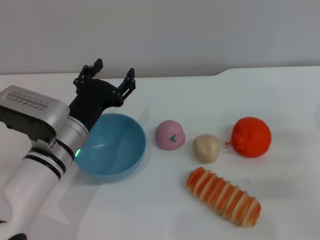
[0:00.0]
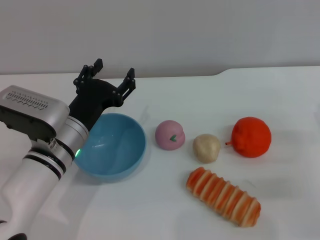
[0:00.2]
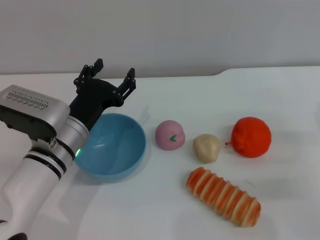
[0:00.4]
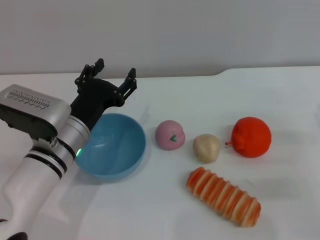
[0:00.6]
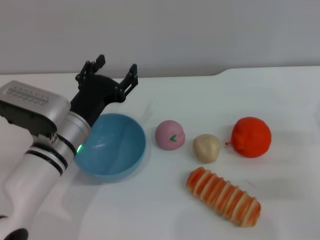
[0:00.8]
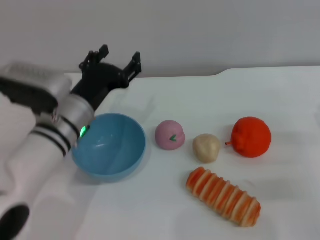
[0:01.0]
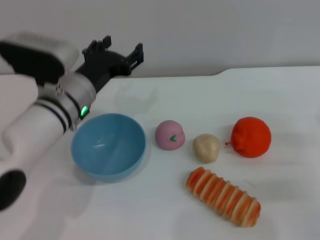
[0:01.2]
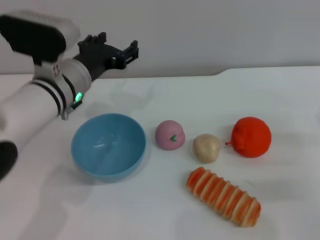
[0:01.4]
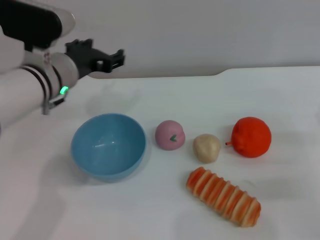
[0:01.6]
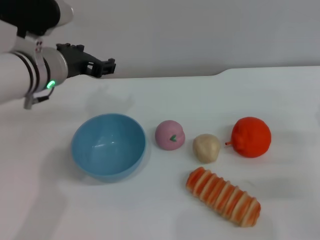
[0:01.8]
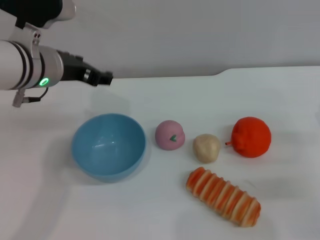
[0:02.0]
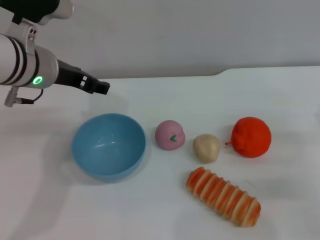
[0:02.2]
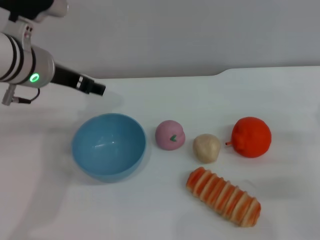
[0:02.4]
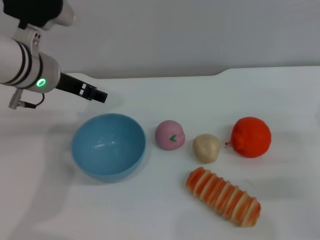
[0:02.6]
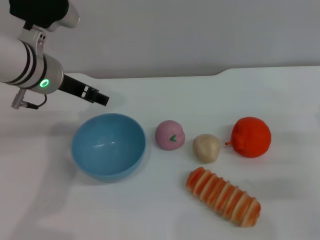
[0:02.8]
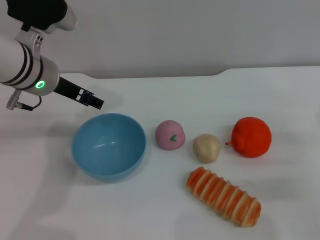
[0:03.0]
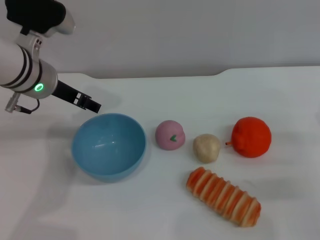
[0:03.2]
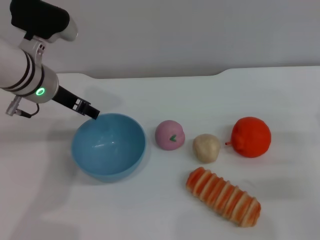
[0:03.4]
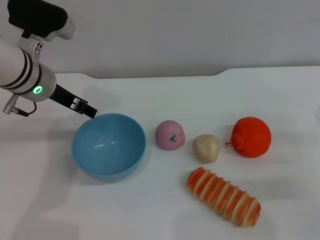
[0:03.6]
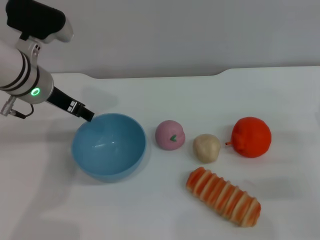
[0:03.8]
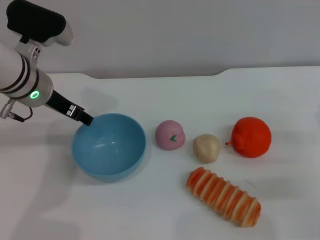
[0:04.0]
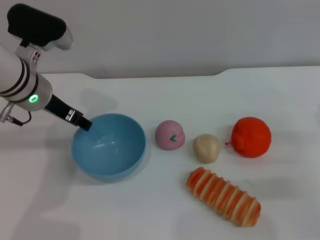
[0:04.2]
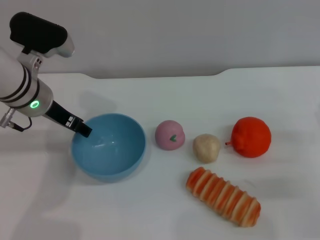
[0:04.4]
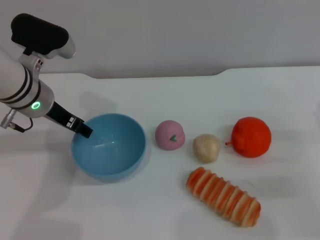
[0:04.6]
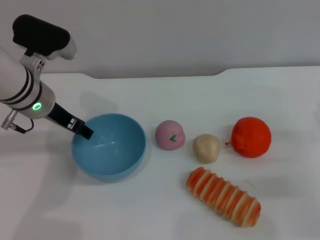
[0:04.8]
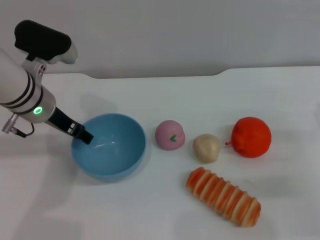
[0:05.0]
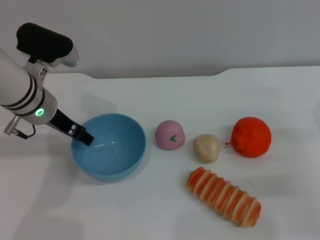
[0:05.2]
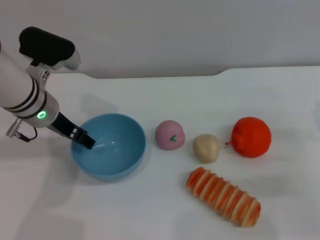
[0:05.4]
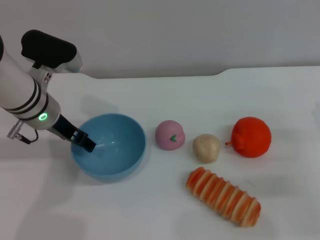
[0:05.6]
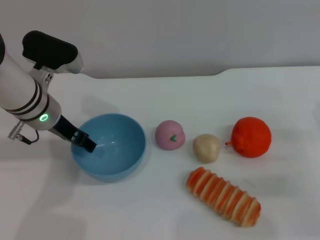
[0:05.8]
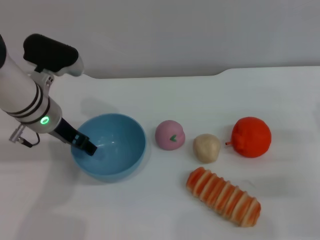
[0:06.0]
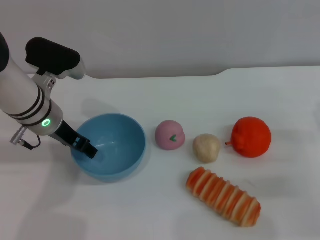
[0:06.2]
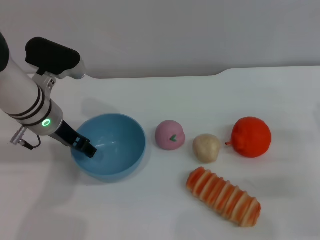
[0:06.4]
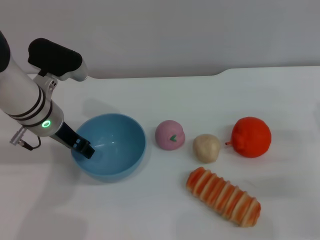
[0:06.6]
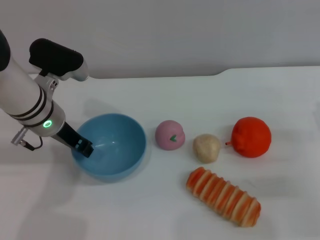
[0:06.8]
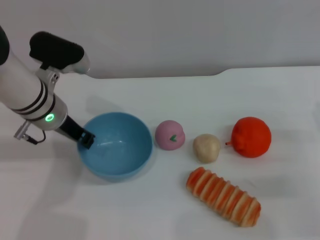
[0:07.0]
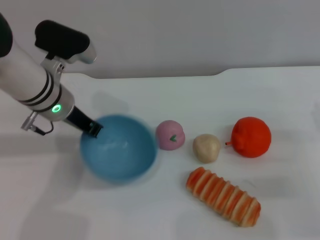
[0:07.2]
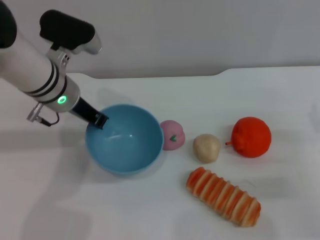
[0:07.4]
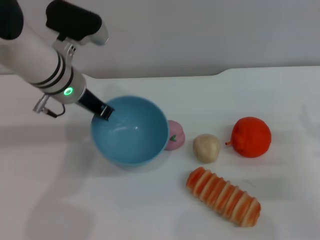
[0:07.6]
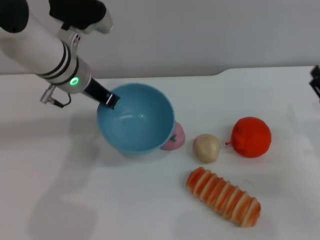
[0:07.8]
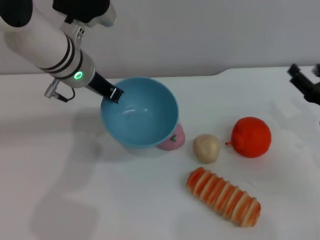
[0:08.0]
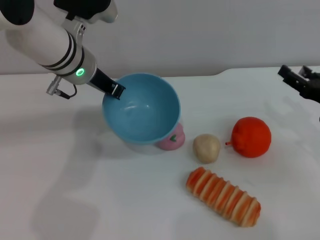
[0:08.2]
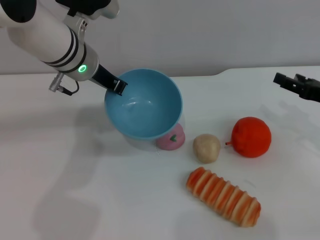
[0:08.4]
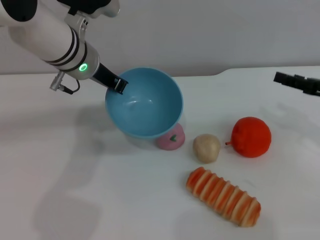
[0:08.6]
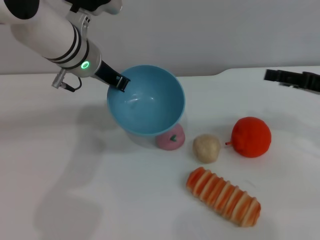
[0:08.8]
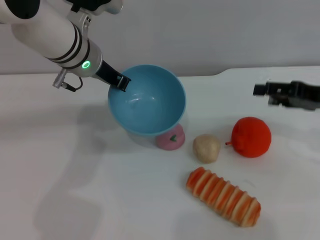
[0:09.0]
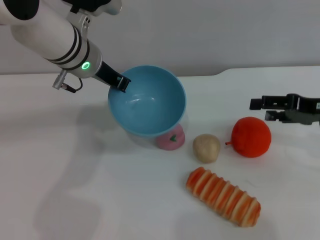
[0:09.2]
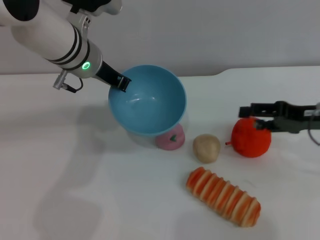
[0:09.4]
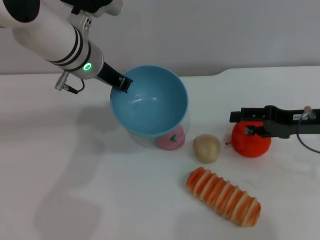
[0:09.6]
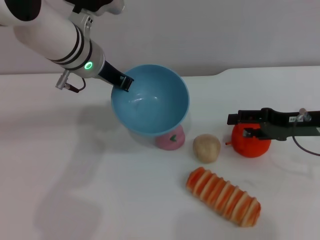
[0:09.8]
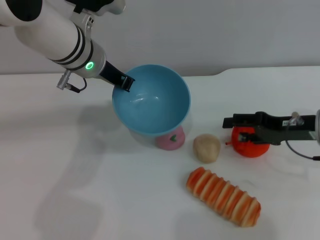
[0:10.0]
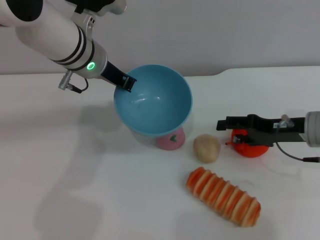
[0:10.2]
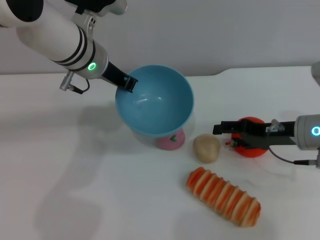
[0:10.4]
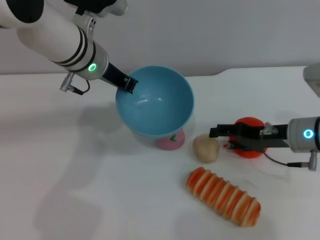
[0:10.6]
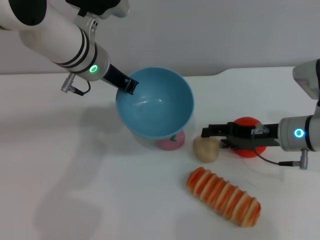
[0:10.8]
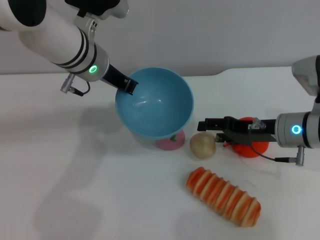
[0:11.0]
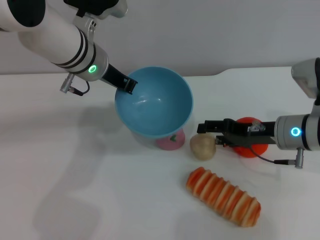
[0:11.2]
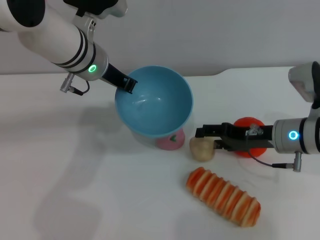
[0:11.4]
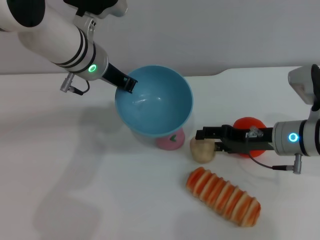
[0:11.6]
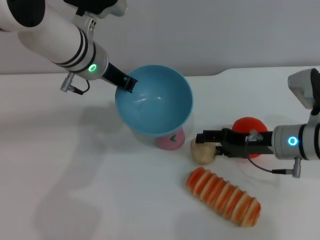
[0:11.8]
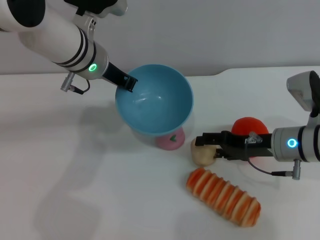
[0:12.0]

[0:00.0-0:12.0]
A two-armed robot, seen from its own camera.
Task of the whole recording: put the egg yolk pastry into the blue bowl and pour it out repeatedly.
Step, 0:00.0 to 0:08.0: Pick up the bowl with the left gripper.
0:00.0 to 0:01.6: The left gripper heads upward and forward, covering about 10 cm.
0:03.0 to 0:06.0: The grippers stay close to where they were, moving slightly.
0:06.0 to 0:07.6: The left gripper shifts by approximately 5 cm, and closes its fingers.
0:07.6 to 0:09.0: The right gripper travels upward and forward by some 15 cm.
0:09.0 to 0:10.4: The right gripper shifts roughly 10 cm downward and to the left.
0:10.4 to 0:12.0: The grippers move only a little.

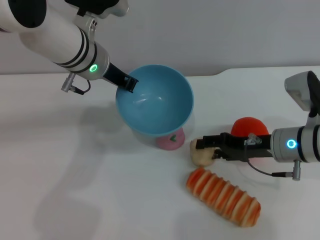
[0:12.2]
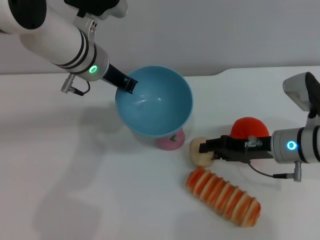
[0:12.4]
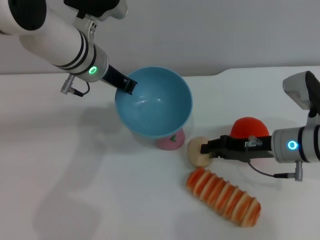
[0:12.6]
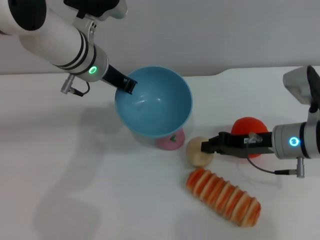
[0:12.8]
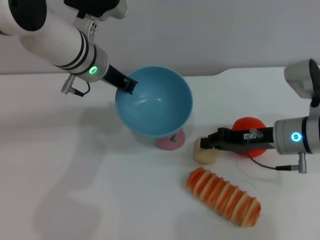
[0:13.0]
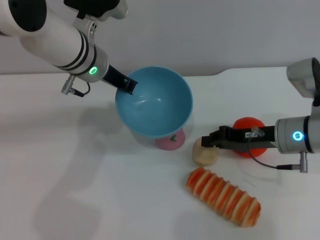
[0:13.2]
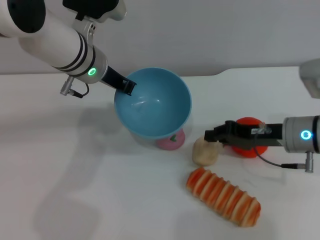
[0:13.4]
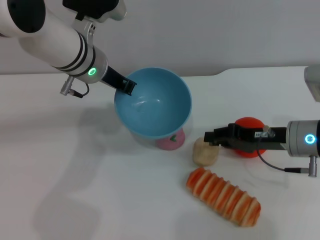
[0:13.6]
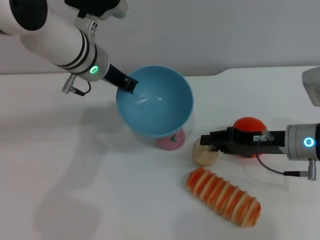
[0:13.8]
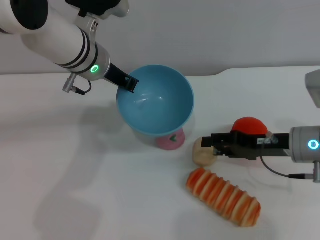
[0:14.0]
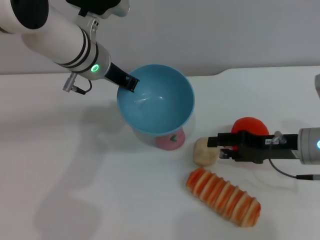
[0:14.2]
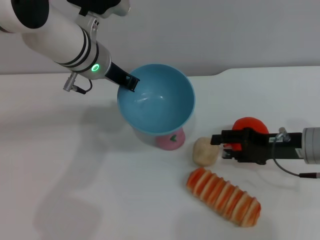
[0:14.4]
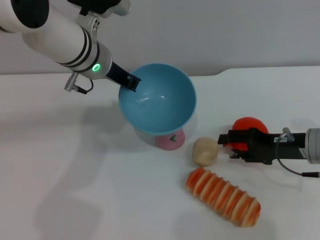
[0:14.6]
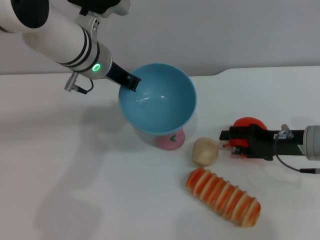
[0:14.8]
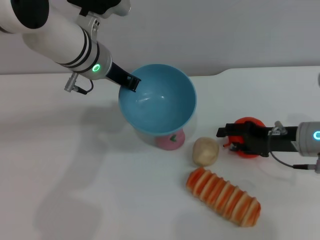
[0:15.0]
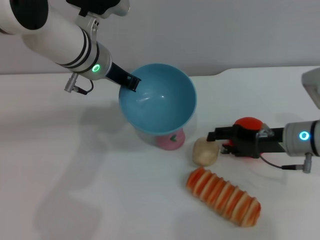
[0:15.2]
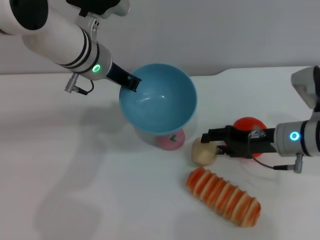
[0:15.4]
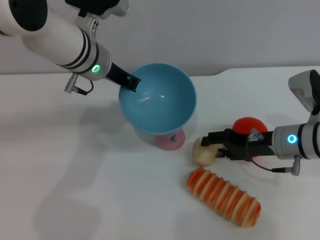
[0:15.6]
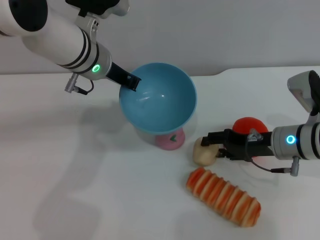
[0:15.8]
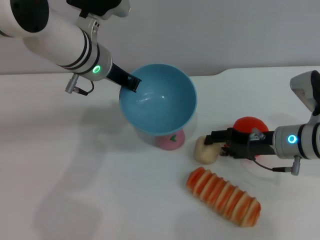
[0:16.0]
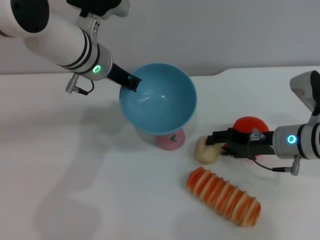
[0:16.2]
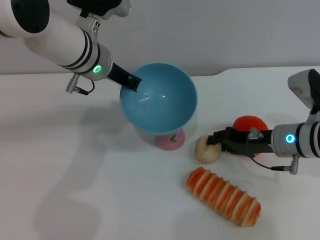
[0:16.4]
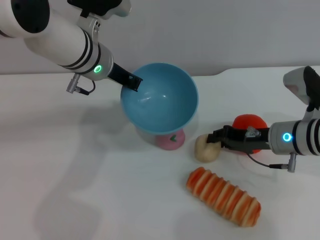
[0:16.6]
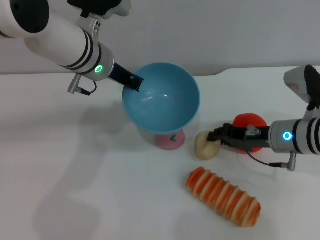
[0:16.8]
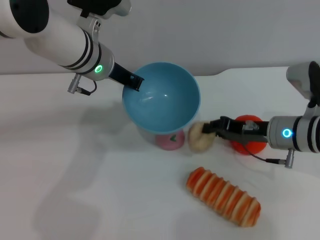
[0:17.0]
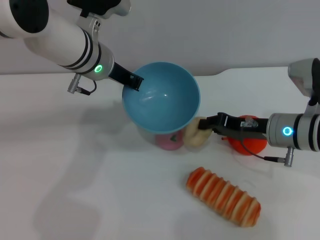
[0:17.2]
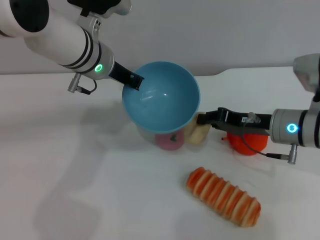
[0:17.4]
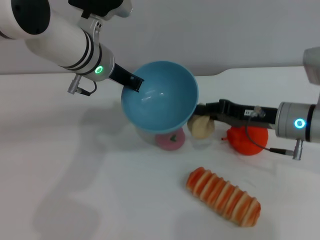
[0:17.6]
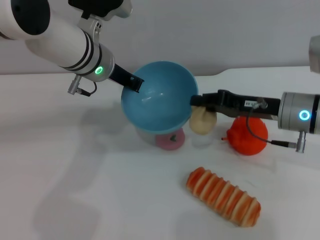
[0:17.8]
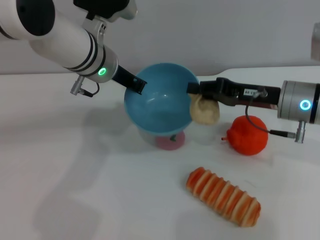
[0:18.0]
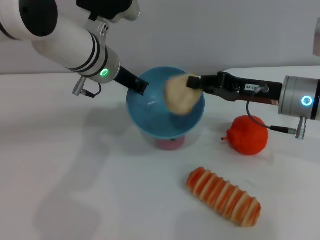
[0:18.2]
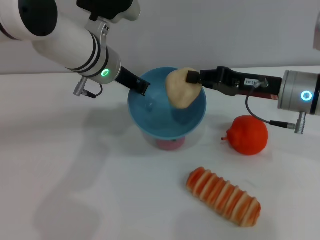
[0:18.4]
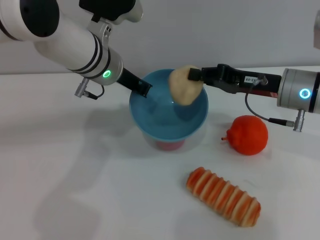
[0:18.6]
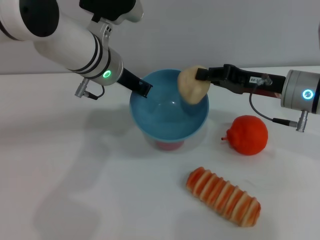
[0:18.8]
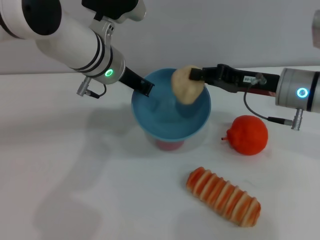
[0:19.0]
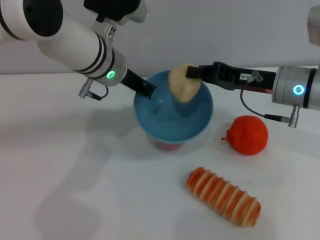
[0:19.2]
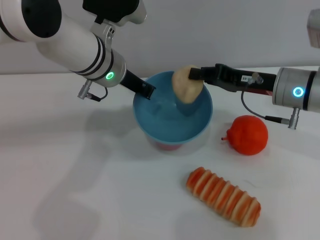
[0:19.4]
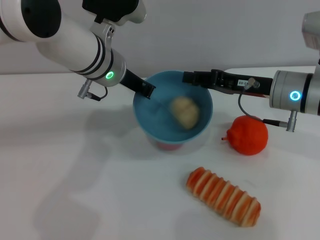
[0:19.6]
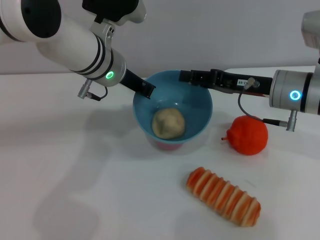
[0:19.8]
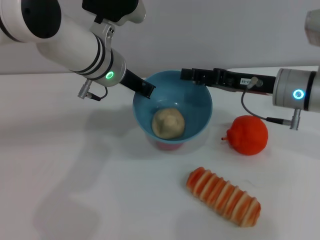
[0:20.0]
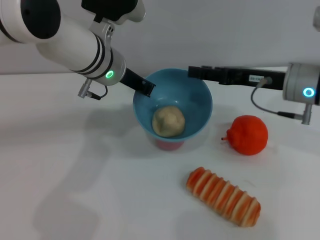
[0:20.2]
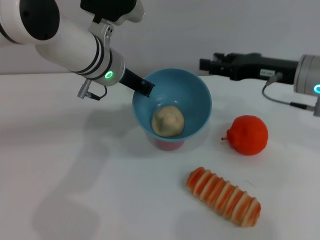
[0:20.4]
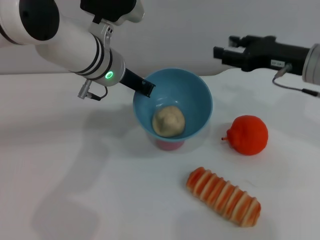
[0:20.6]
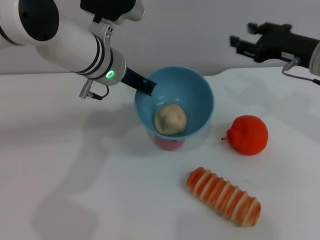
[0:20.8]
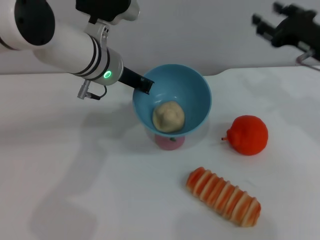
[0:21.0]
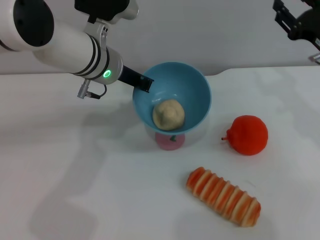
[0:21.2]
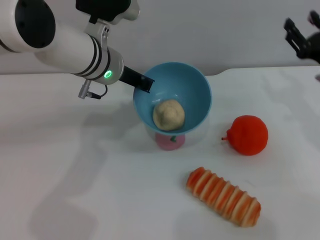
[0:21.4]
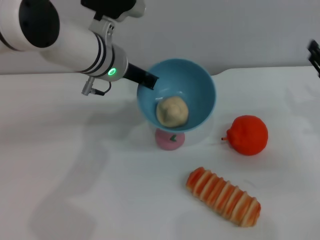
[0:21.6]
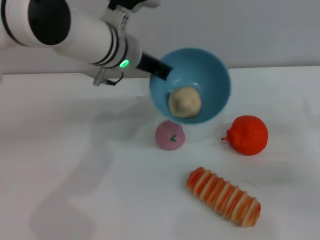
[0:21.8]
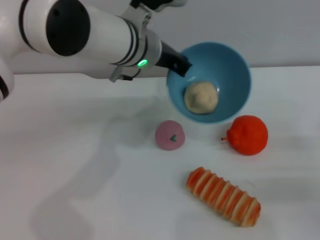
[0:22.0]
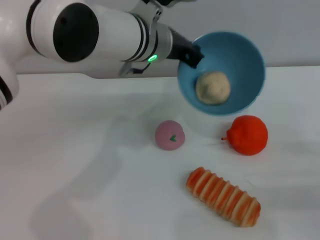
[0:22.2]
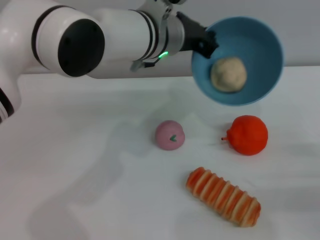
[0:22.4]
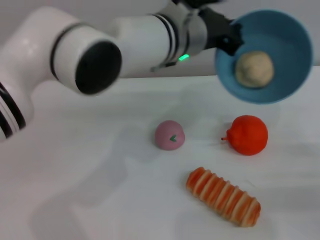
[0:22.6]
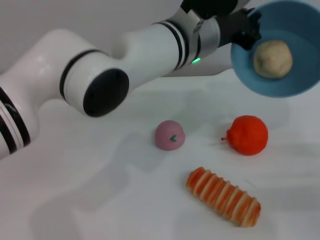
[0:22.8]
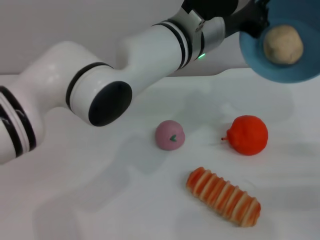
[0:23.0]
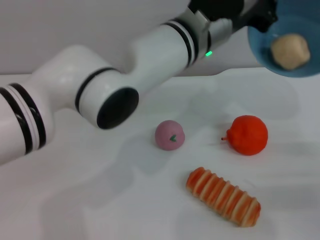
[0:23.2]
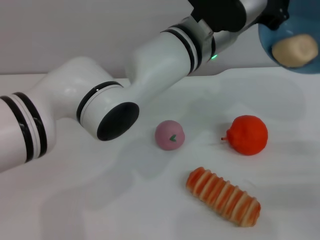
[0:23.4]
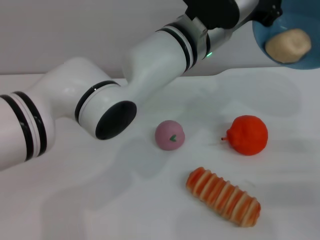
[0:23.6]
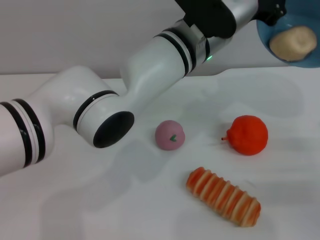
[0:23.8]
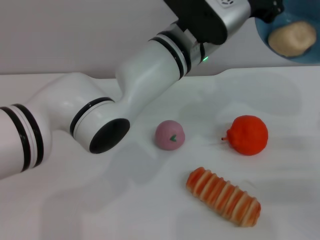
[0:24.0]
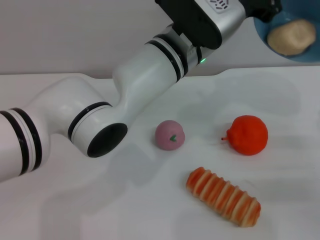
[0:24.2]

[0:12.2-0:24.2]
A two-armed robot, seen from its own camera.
Task of the whole recording: put the egg yolk pastry into the blue bowl and pour it out repeatedly.
Step, 0:12.2 to 0:17.4: Pick up the egg yolk pastry with the right gripper.
Step, 0:17.6 to 0:20.2: Place the egg yolk pastry into the bowl.
0:12.2 to 0:13.8: The right gripper closes its fingers.
0:13.8 to 0:15.2: The right gripper opens its fingers.
0:15.2 to 0:16.6: The right gripper closes up.
0:16.6 to 0:18.2: The right gripper is displaced upward by roughly 10 cm, and closes up.
0:18.2 to 0:19.8: The grippers make only small movements.
0:19.8 to 0:21.2: The right gripper shifts some 10 cm to the right, and opens its fingers.
0:21.2 to 0:22.6: The right gripper shifts approximately 20 cm backward, downward and to the right. The left gripper is displaced to the right by roughly 10 cm.
